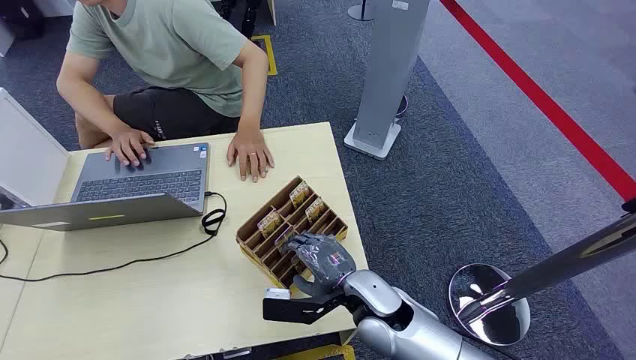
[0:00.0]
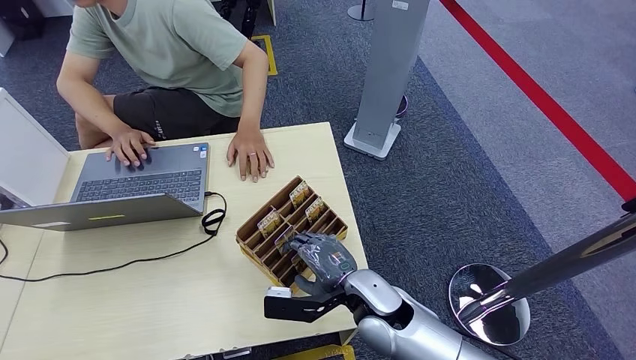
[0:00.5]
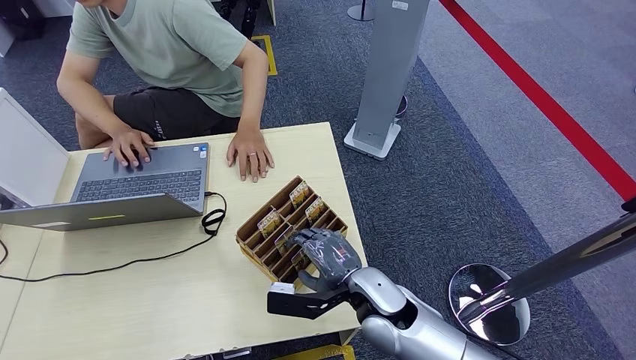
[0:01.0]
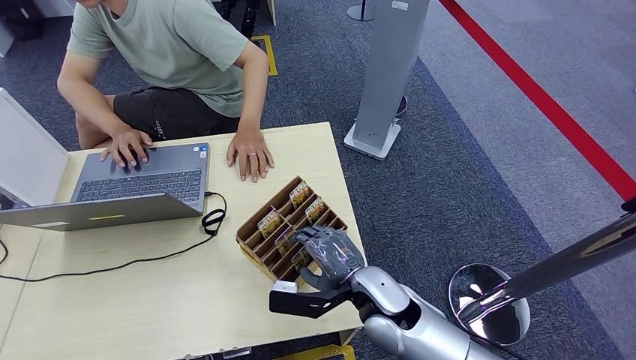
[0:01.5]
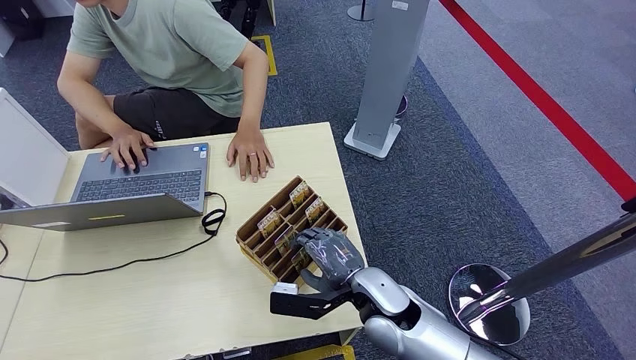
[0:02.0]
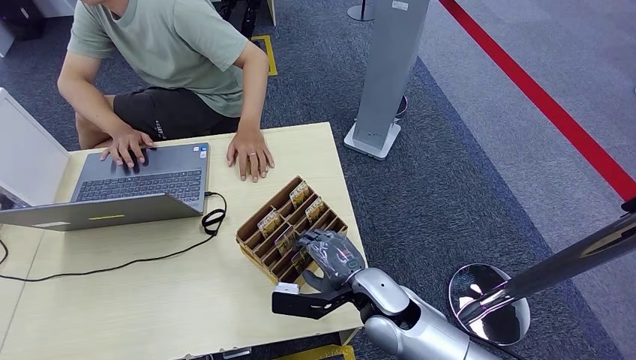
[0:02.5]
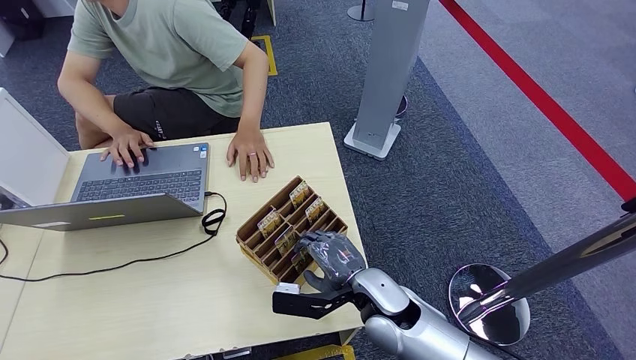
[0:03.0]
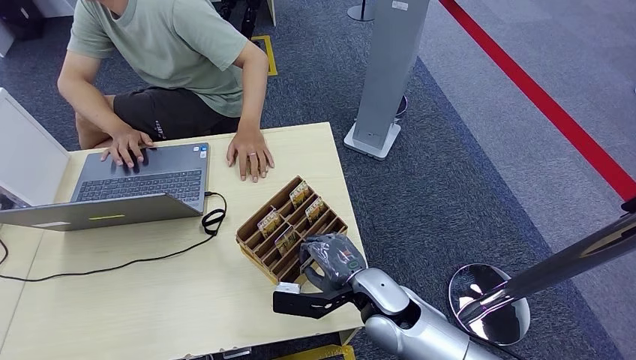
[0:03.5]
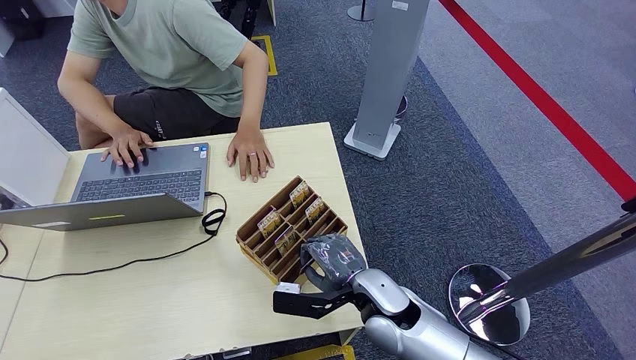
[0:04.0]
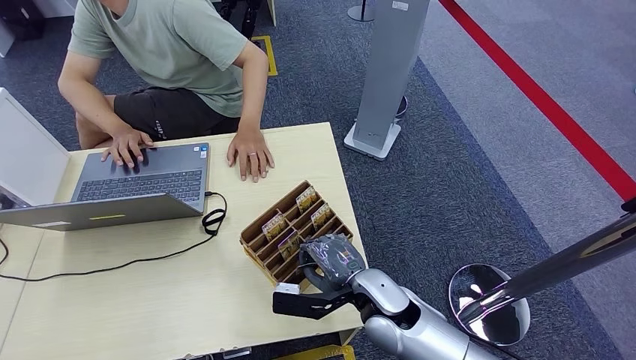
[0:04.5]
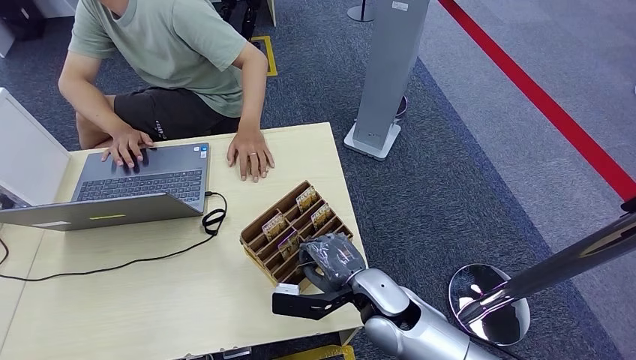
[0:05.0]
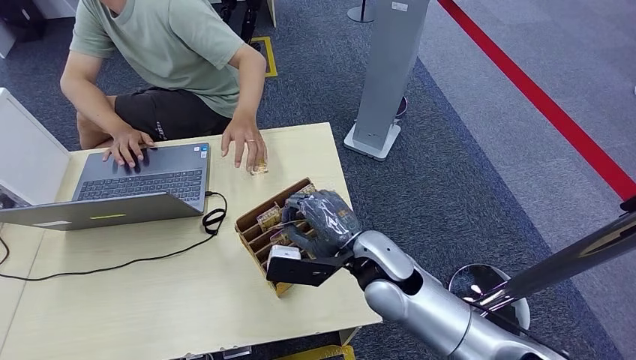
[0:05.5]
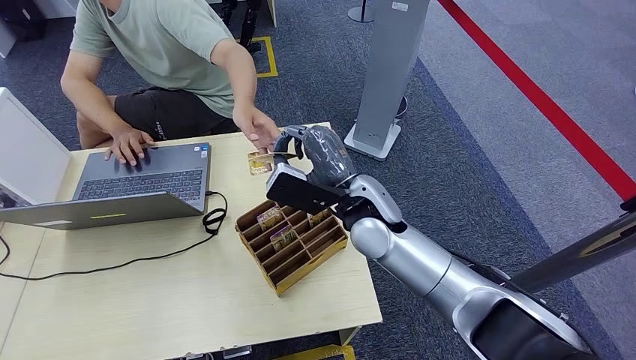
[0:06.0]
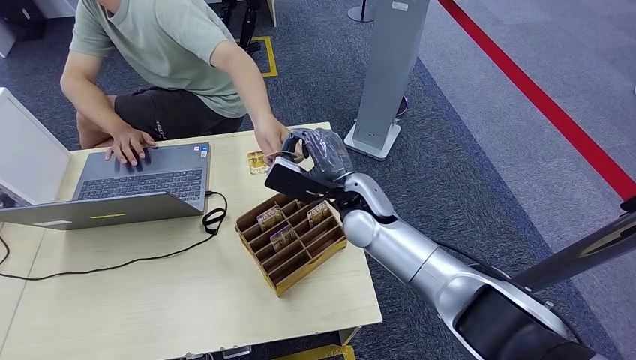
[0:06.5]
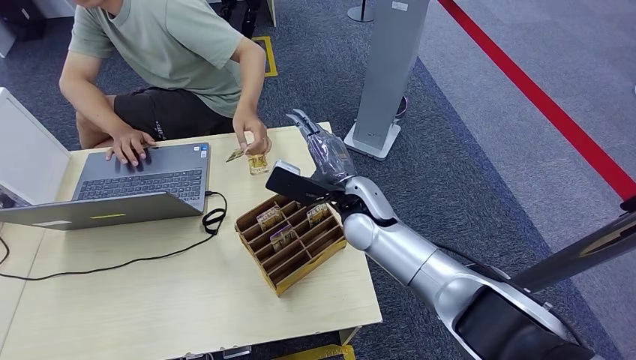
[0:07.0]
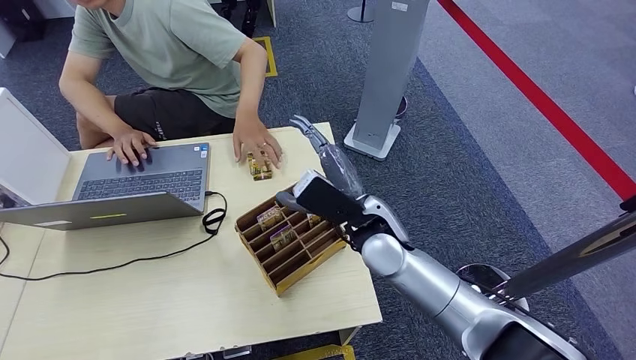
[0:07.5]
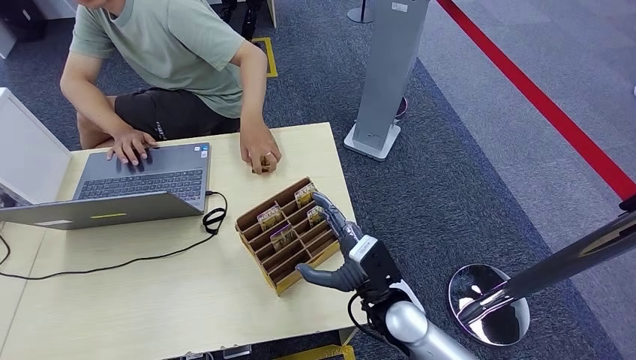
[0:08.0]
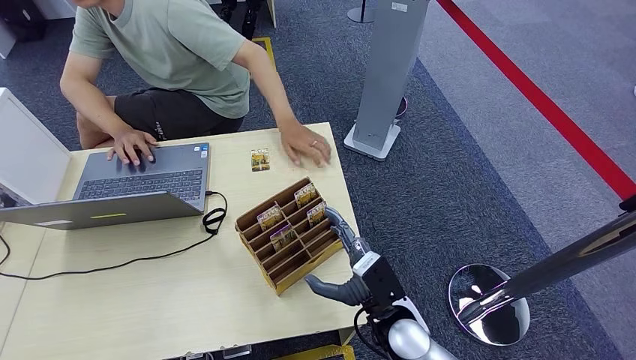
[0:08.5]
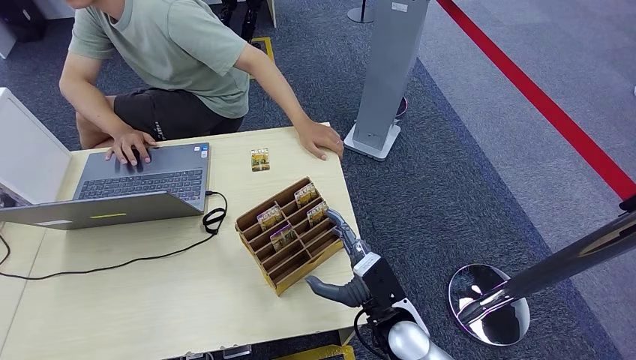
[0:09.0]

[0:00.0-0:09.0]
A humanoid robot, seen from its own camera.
Step, 0:00.0 to 0:04.5: Pick up the room card from the card holder.
Step, 0:05.0 to 0:09.0: Hand the room card to the target.
0:02.0 to 0:04.5: Neither hand changes place.
0:04.5 to 0:07.0: The right hand is displaced forward and upward by some 15 cm.
0:07.0 to 0:09.0: The right hand travels backward and downward by about 20 cm.

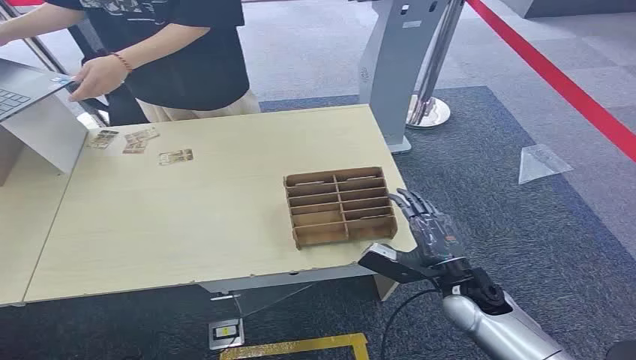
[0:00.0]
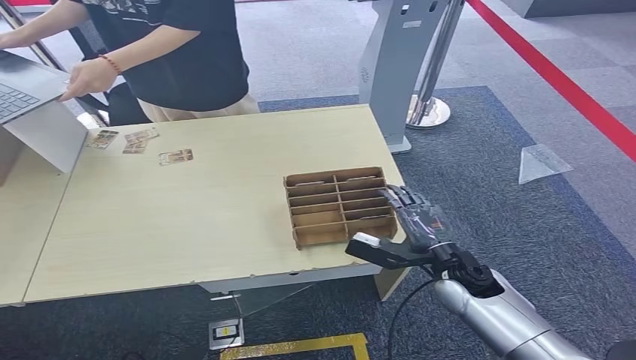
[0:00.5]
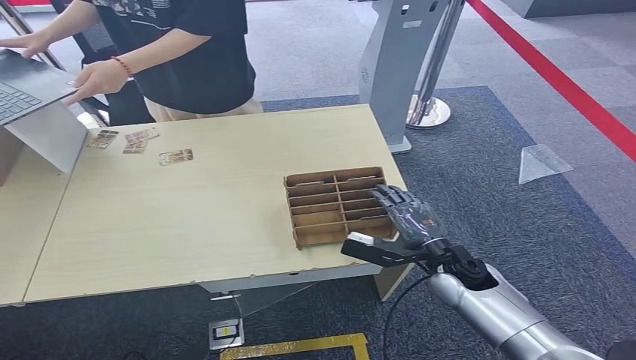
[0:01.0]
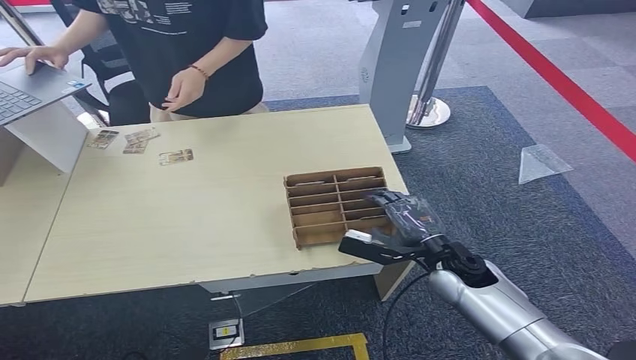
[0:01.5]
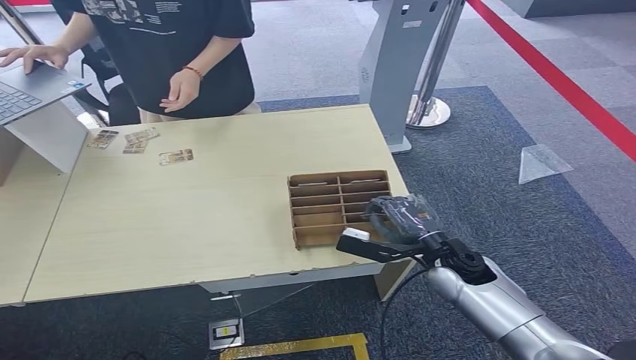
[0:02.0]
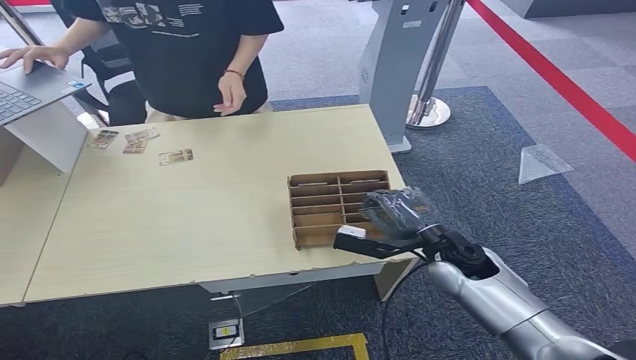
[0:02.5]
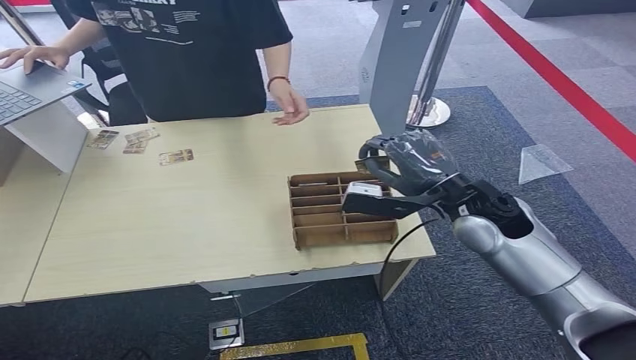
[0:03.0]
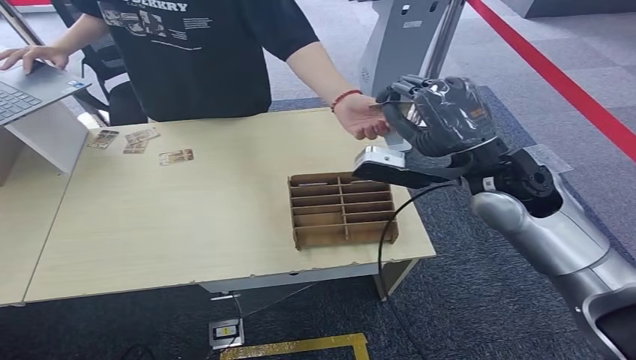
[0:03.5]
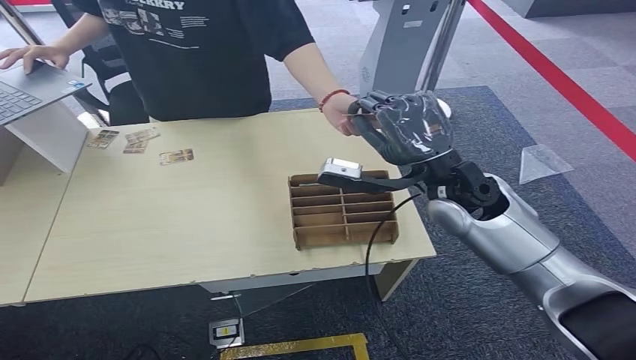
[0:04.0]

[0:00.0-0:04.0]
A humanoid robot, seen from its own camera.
Step, 0:00.0 to 0:02.5: Pick up the room card from the card holder.
Step, 0:03.0 to 0:04.0: Hand the room card to the target.
